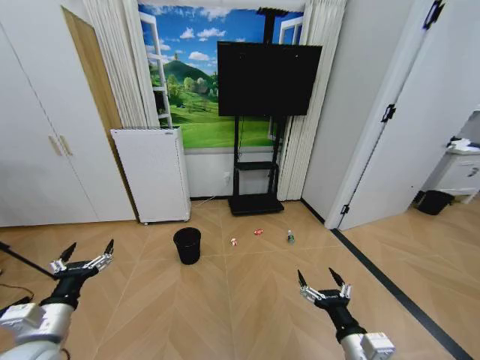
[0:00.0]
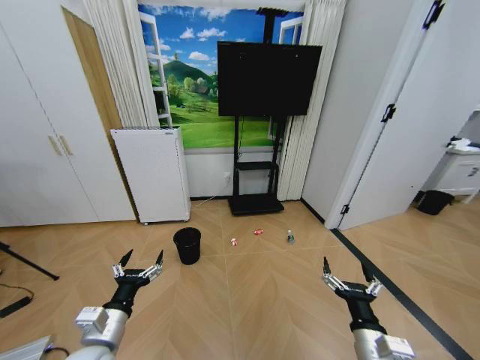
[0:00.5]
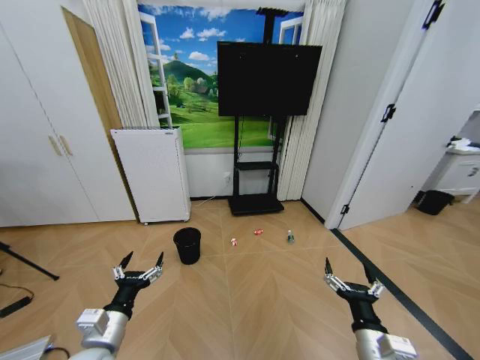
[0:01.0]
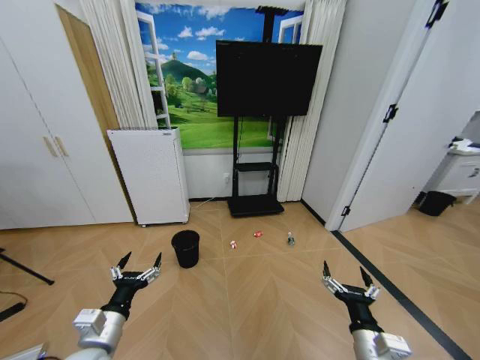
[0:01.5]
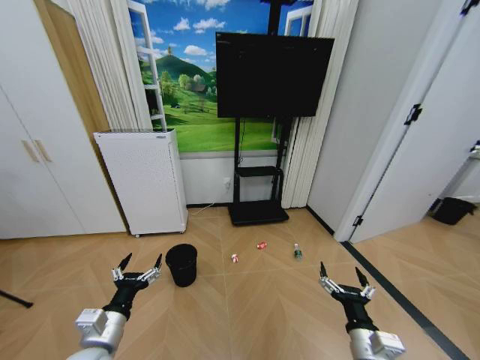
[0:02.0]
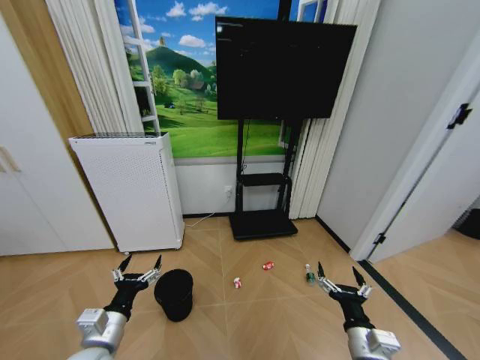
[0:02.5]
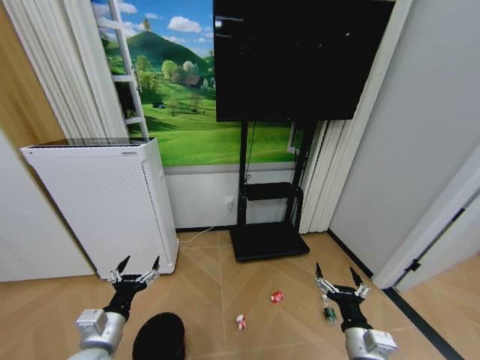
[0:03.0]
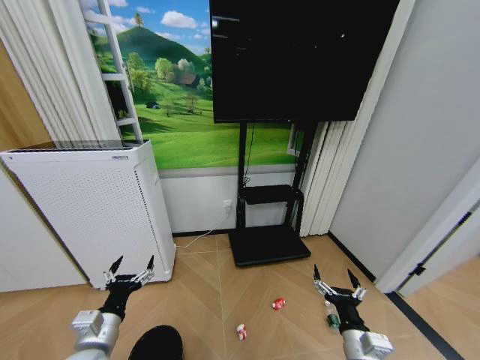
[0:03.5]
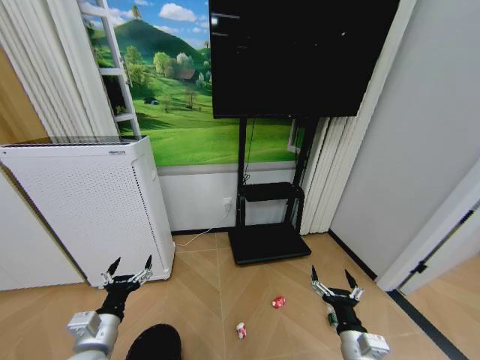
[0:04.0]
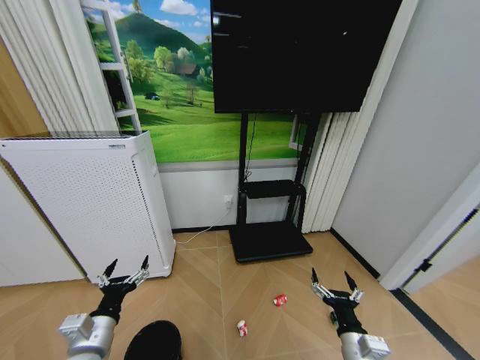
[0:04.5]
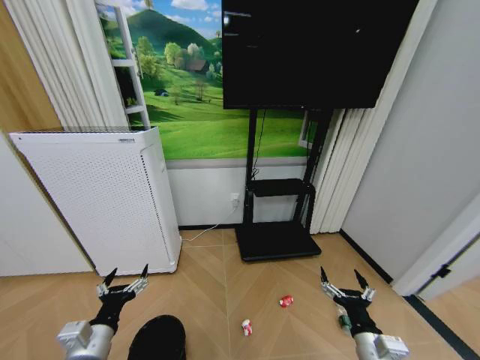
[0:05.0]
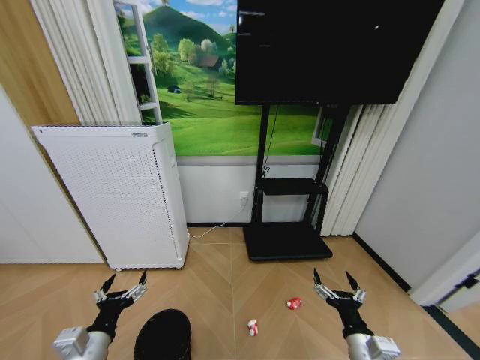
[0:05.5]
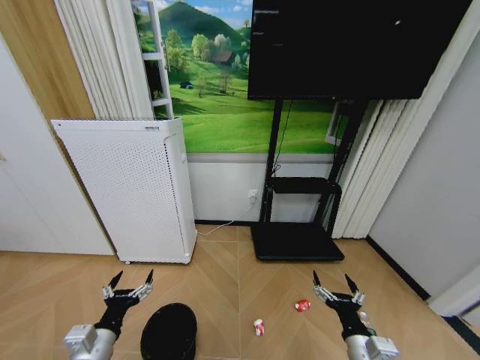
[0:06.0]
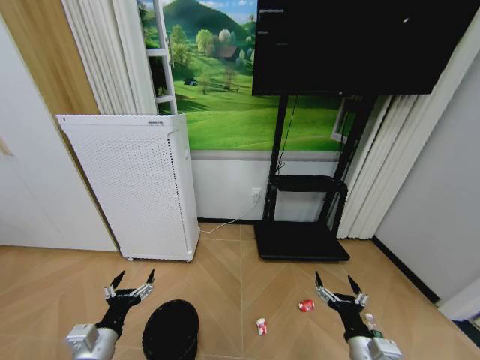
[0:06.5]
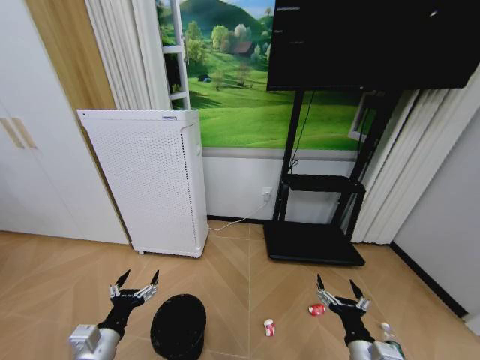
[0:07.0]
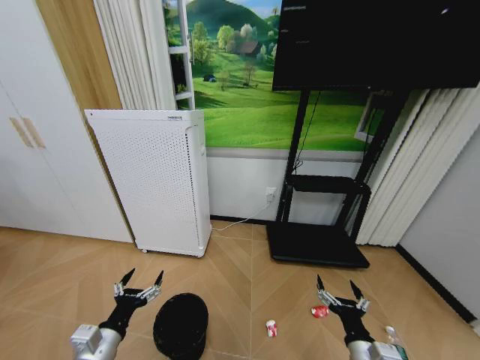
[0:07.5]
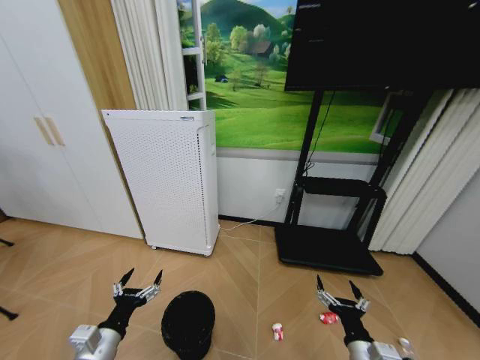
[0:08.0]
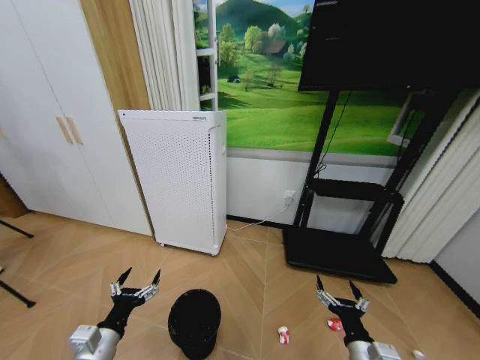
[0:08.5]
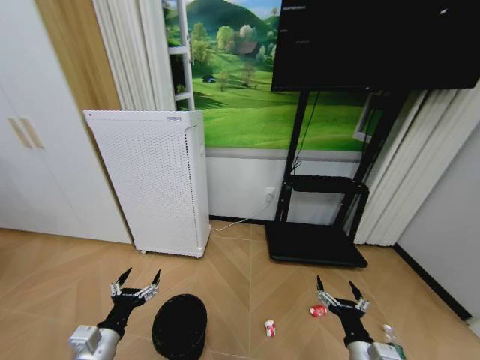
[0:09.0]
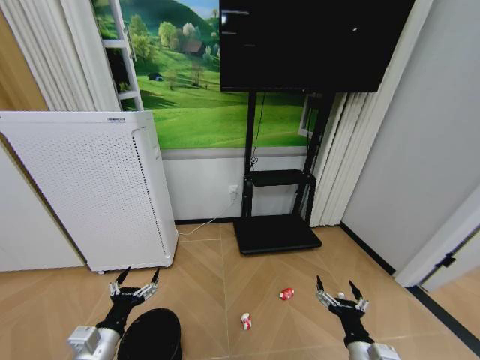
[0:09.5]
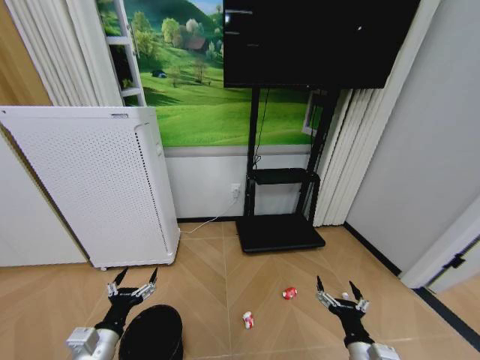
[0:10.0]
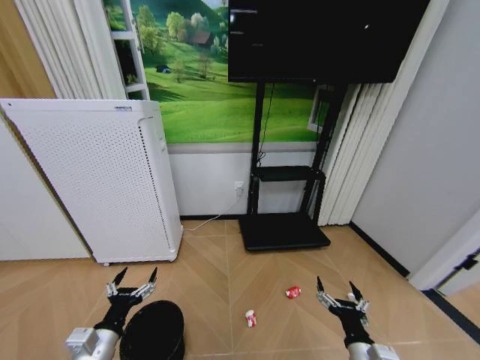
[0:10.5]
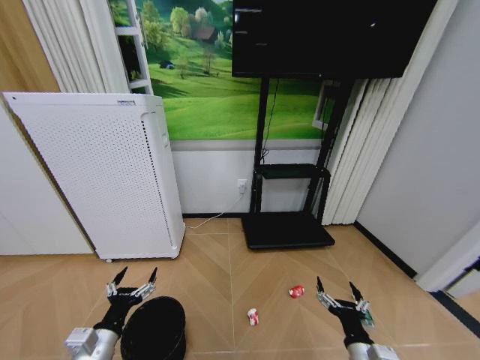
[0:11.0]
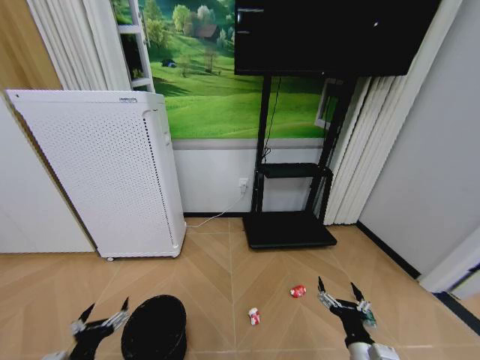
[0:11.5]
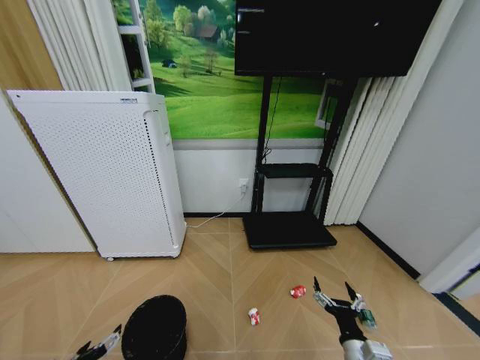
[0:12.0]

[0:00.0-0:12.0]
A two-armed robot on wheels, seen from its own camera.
Task of the whole recording: Pick up the trash bin and place the garbage on the floor into it.
0:10.0 to 0:12.0: The left gripper goes roughly 10 cm to the left and downward.

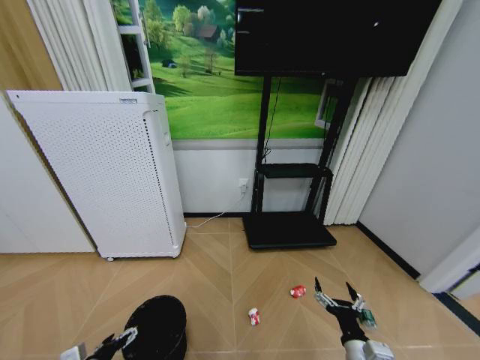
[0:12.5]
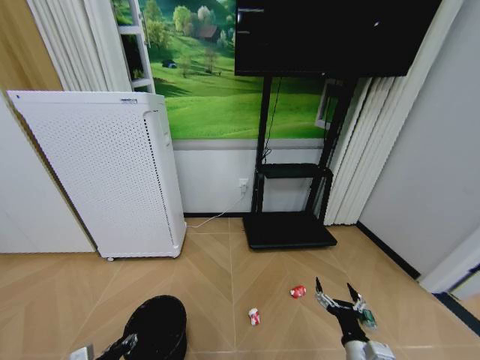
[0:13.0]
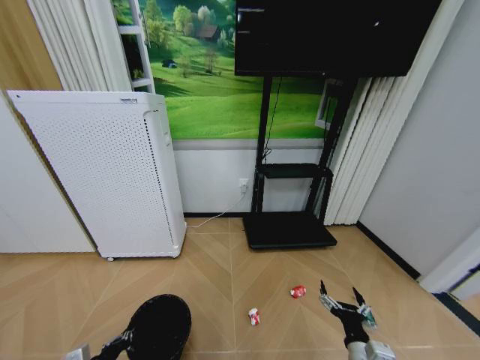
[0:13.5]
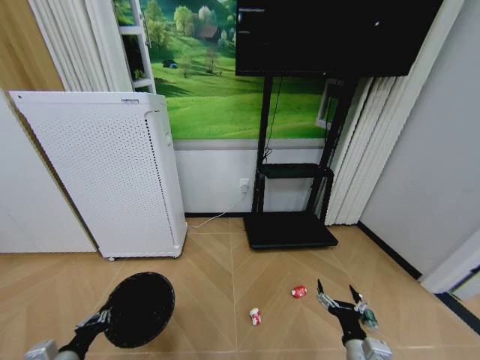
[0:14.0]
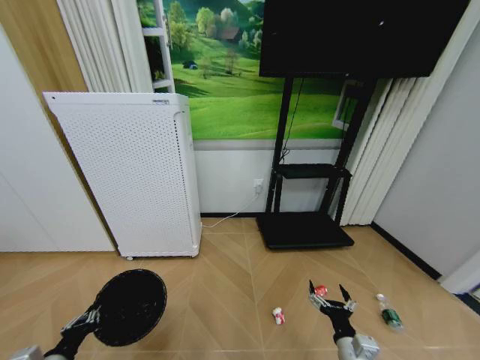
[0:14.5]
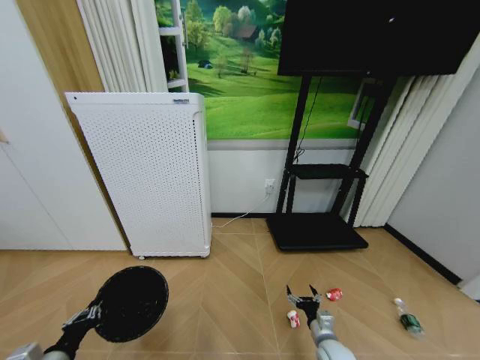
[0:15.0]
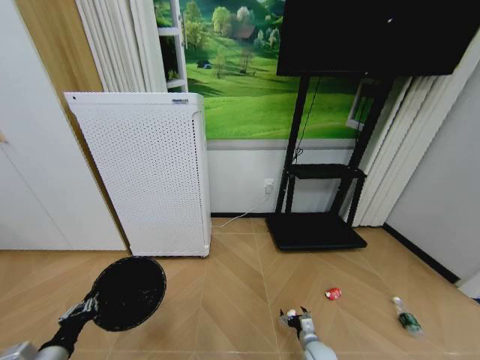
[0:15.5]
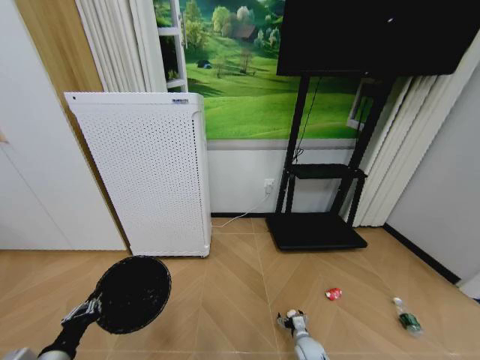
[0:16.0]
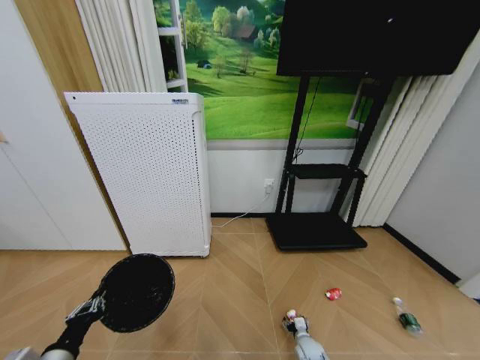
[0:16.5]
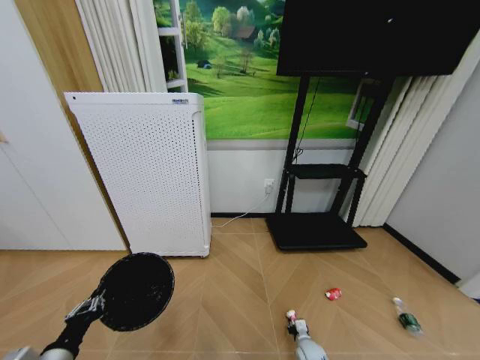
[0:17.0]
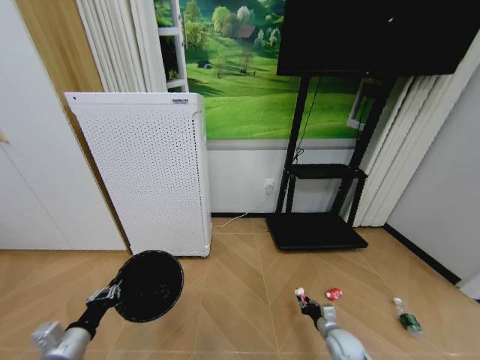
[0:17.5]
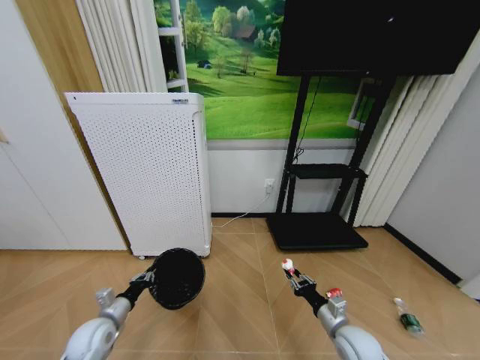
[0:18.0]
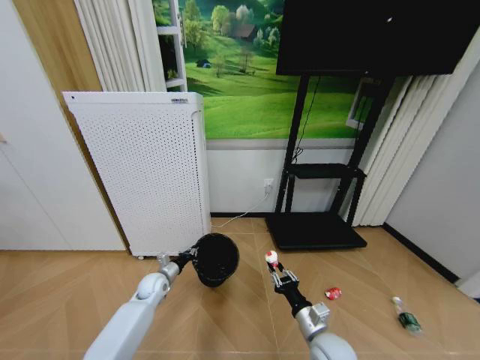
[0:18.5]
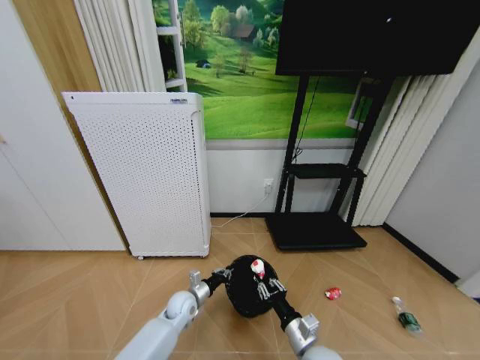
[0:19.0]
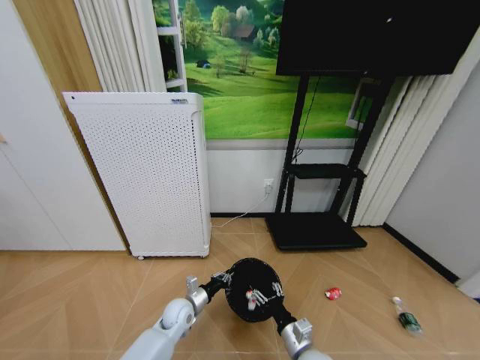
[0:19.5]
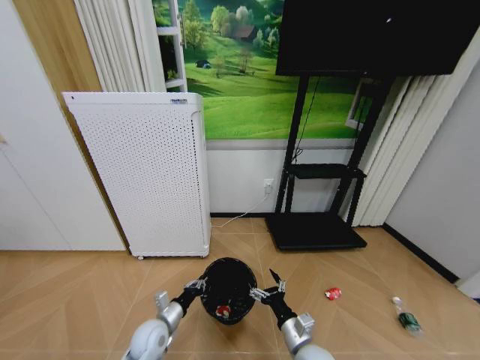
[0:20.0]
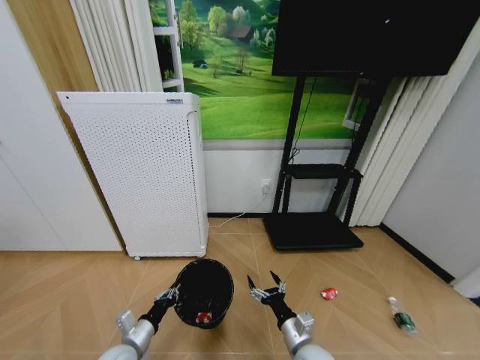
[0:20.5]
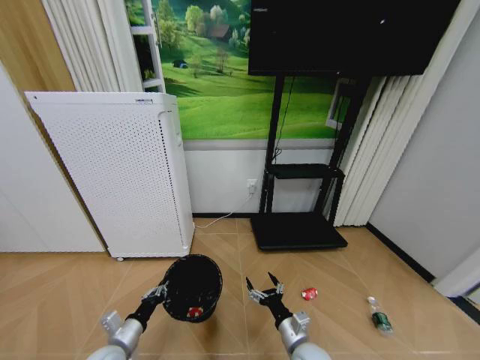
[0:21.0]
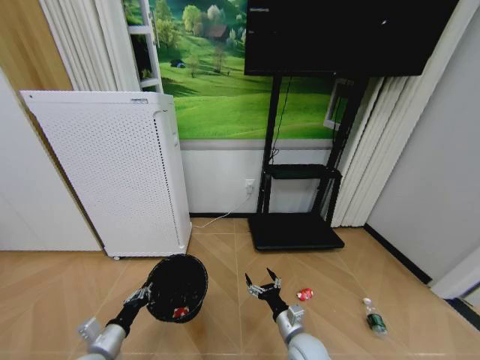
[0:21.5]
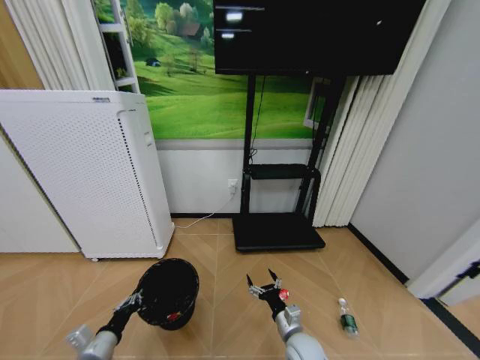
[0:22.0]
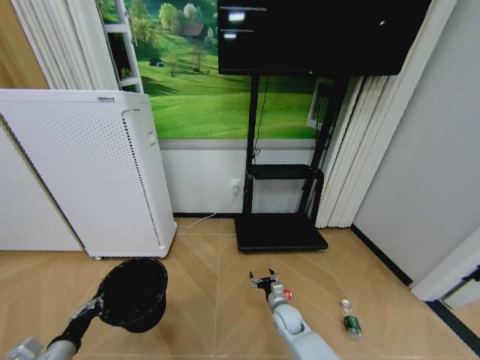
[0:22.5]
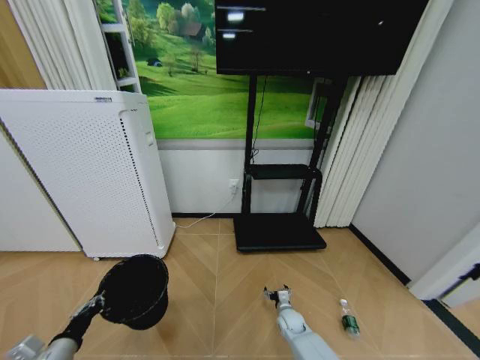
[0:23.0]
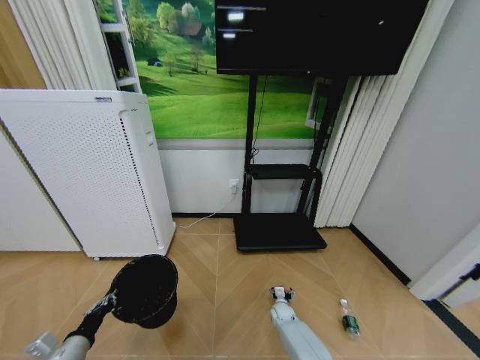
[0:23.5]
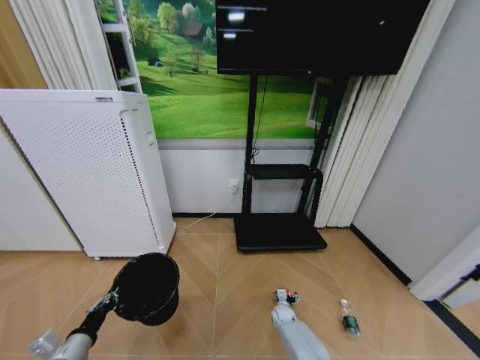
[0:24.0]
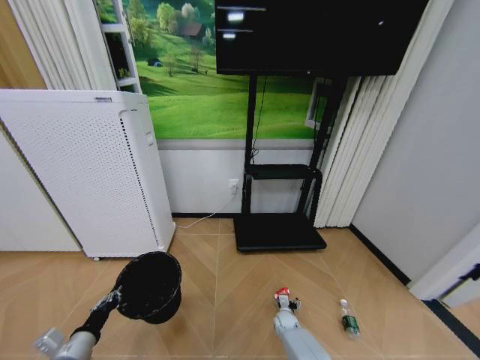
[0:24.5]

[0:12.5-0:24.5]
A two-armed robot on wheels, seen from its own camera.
Task of the whole recording: Pick up the trash bin and place the garbage on the floor into it.
0:12.5 to 0:14.5: The left gripper goes roughly 5 cm upward, and closes up.
0:14.5 to 0:16.5: The right gripper heads downward and forward, covering about 25 cm.
0:16.5 to 0:18.5: The right gripper shifts about 25 cm upward, and closes, while the left gripper shifts approximately 30 cm forward.
0:18.5 to 0:20.5: The right gripper ends up some 5 cm from where it was, and opens its fingers. The left gripper goes approximately 20 cm backward.
0:20.5 to 0:22.5: The left gripper heads to the left, backward and upward, covering roughly 15 cm. Meanwhile the right gripper moves forward and downward, roughly 20 cm.
0:22.5 to 0:24.5: The right gripper goes some 15 cm downward.

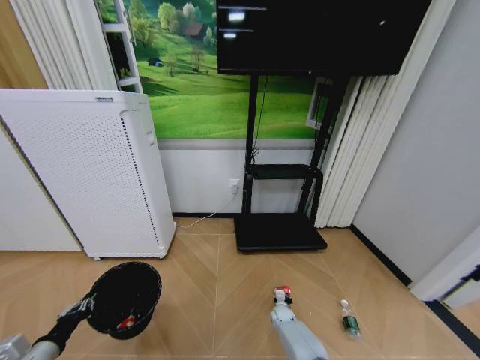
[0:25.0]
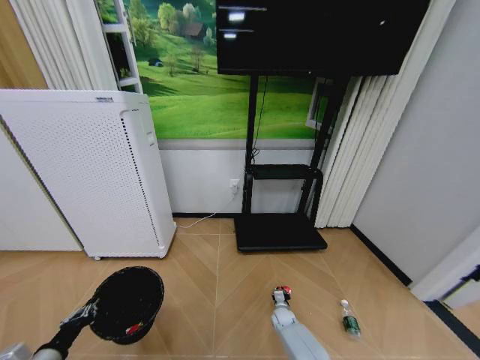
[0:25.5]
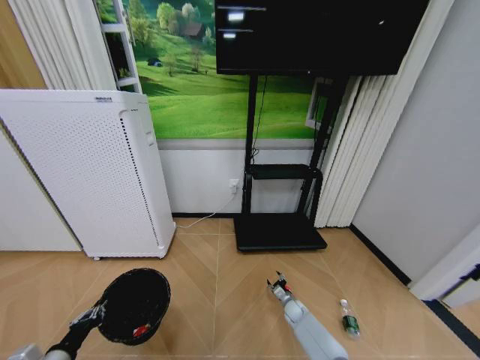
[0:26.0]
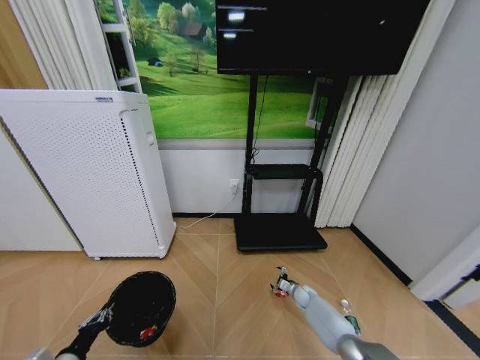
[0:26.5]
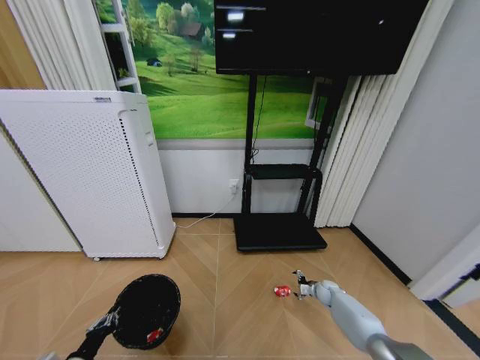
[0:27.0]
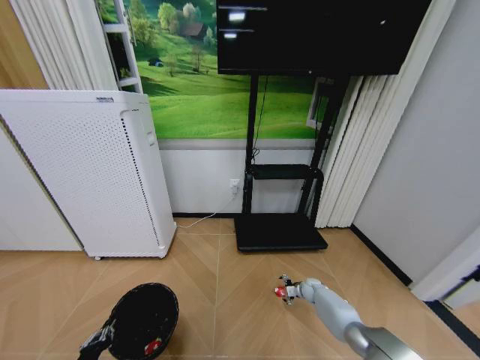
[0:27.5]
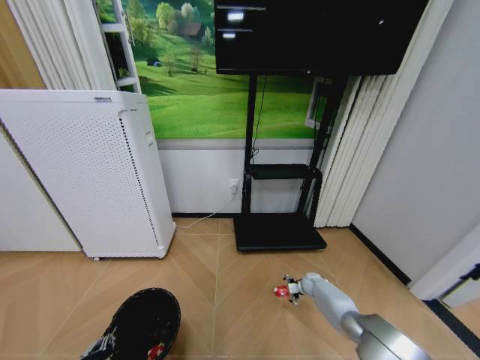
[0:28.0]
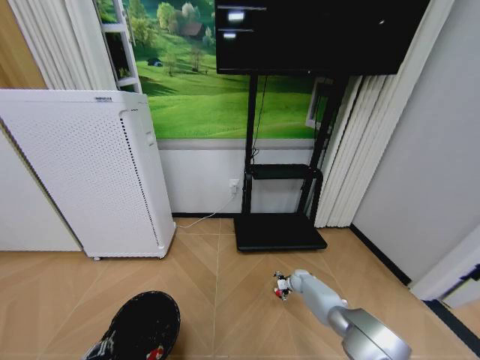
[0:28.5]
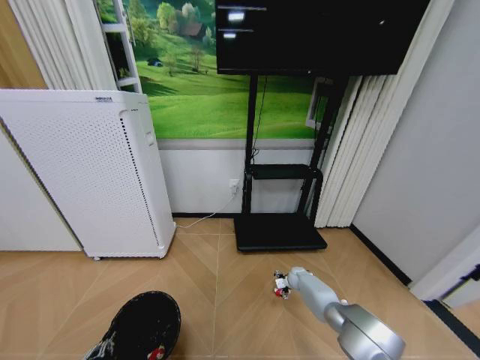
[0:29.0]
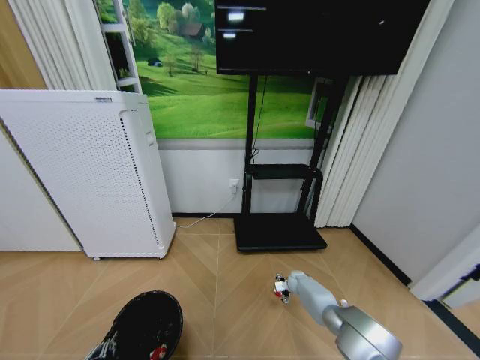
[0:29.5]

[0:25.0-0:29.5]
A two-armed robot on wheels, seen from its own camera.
Task of the whole recording: Pick up the trash bin and place the garbage on the floor into it.
0:25.0 to 0:27.0: The left gripper heads downward, covering roughly 5 cm, while the right gripper moves to the right and upward, some 20 cm, and opens its fingers.
0:27.0 to 0:29.5: The left gripper is displaced backward by roughly 5 cm, while the right gripper moves to the left and forward, some 10 cm.
